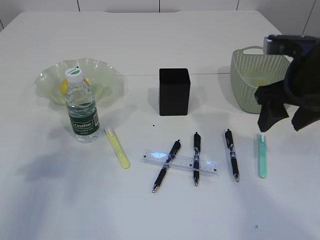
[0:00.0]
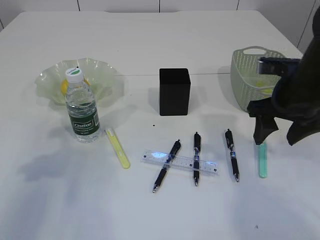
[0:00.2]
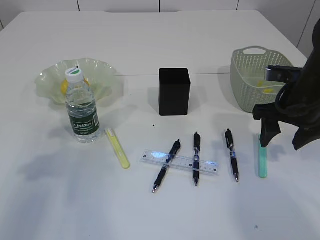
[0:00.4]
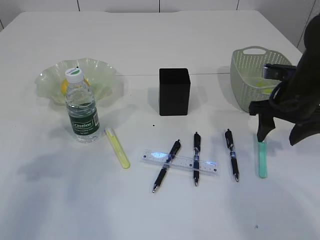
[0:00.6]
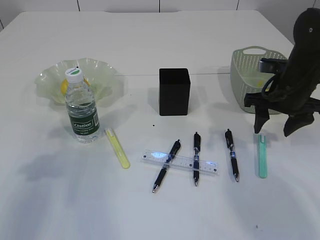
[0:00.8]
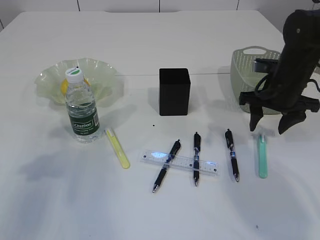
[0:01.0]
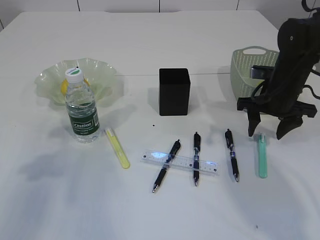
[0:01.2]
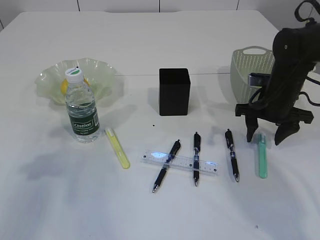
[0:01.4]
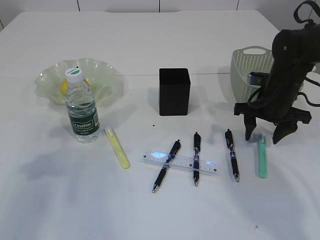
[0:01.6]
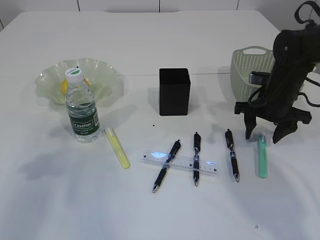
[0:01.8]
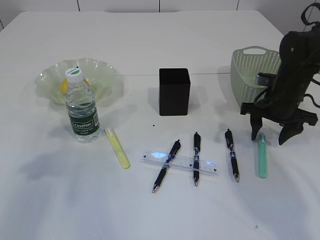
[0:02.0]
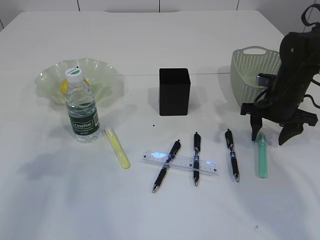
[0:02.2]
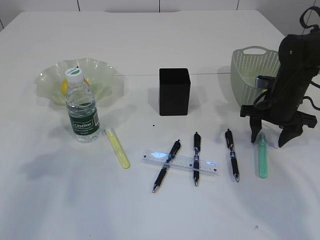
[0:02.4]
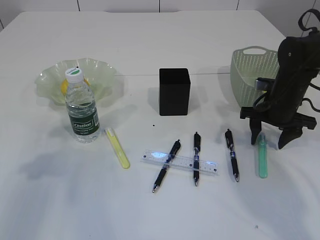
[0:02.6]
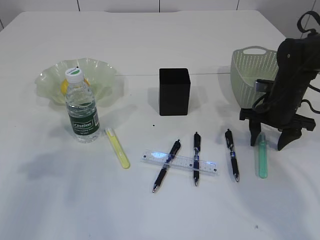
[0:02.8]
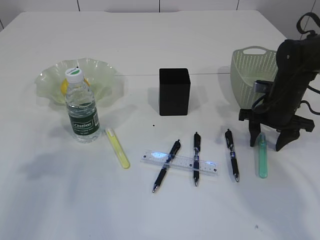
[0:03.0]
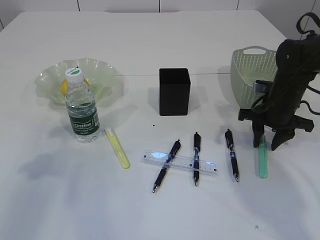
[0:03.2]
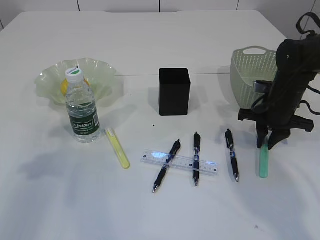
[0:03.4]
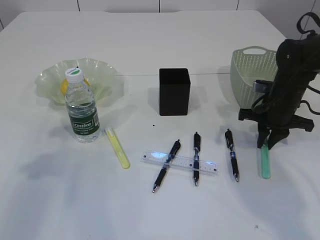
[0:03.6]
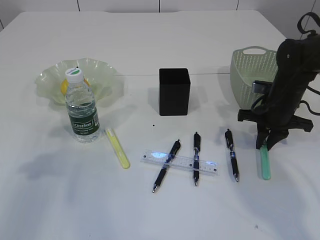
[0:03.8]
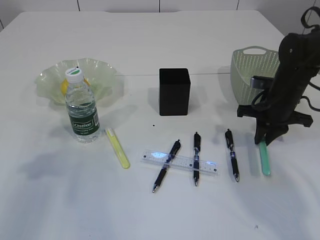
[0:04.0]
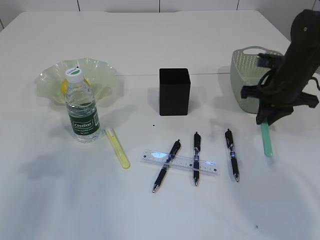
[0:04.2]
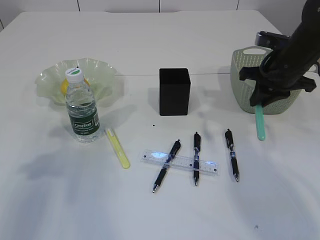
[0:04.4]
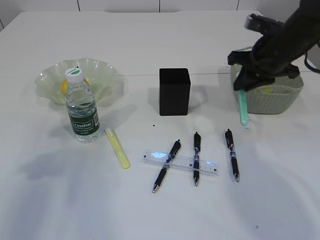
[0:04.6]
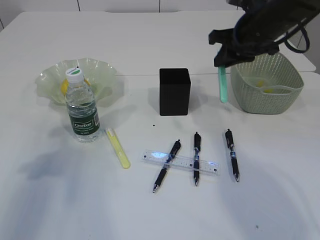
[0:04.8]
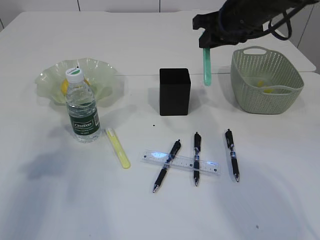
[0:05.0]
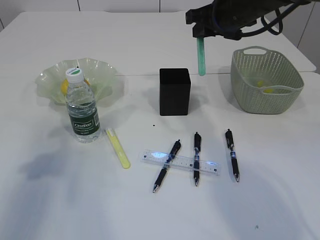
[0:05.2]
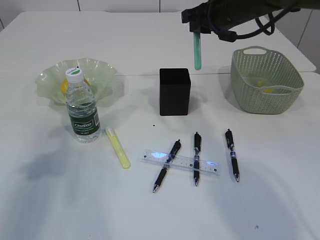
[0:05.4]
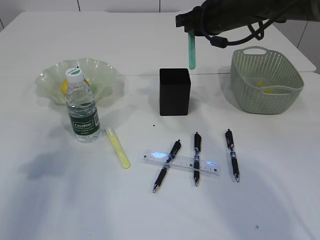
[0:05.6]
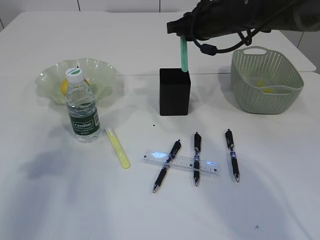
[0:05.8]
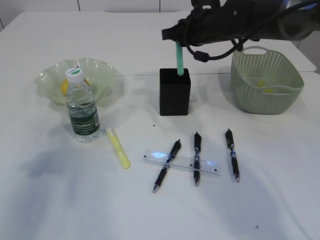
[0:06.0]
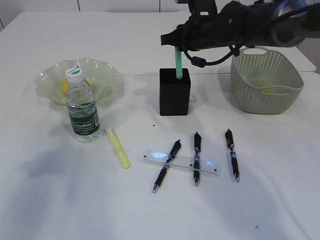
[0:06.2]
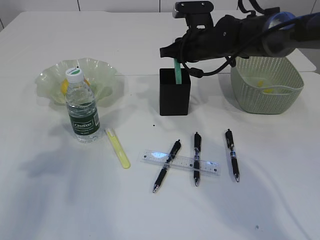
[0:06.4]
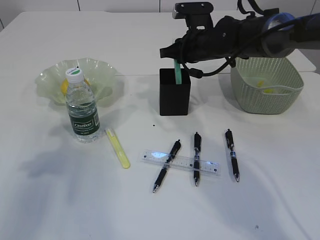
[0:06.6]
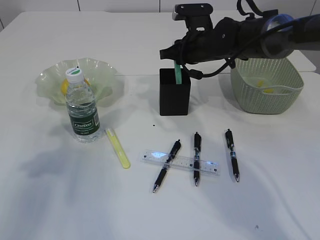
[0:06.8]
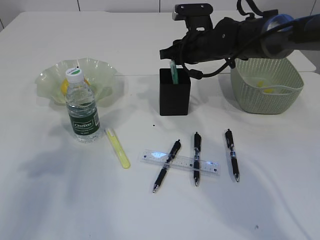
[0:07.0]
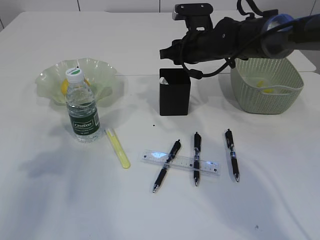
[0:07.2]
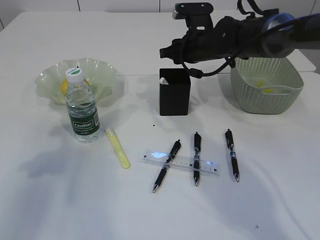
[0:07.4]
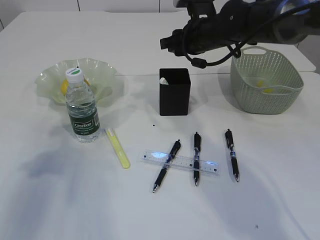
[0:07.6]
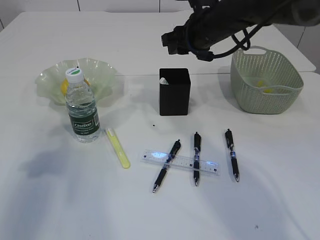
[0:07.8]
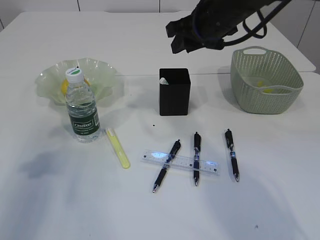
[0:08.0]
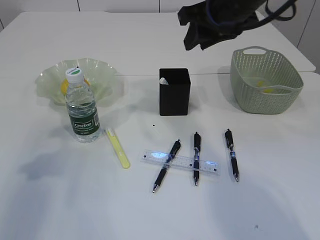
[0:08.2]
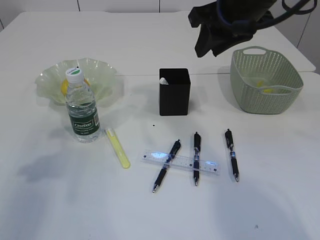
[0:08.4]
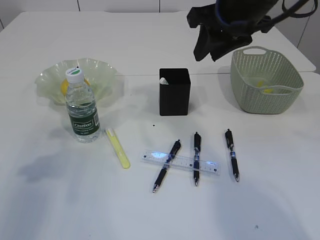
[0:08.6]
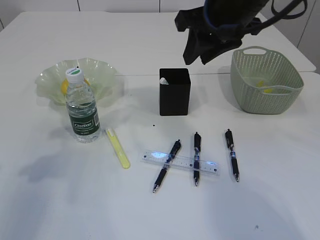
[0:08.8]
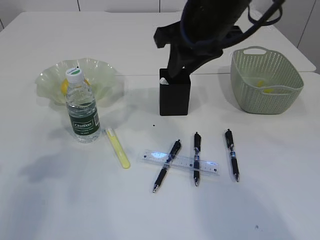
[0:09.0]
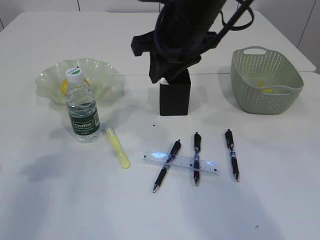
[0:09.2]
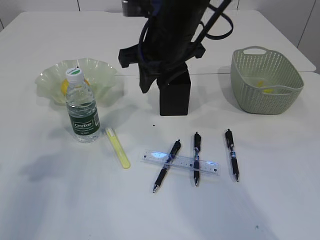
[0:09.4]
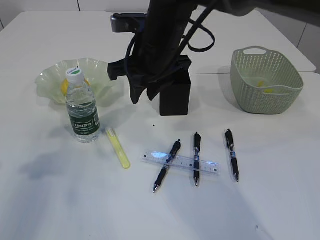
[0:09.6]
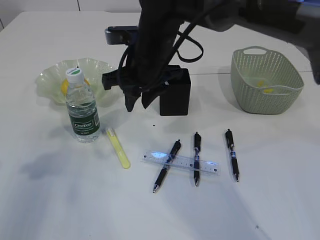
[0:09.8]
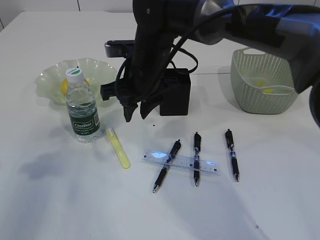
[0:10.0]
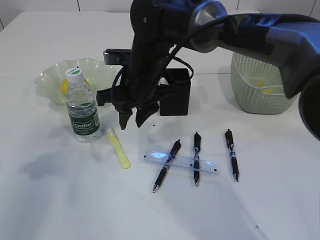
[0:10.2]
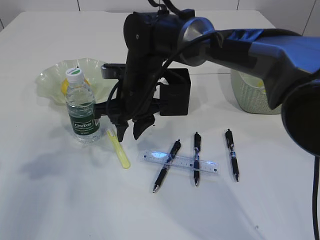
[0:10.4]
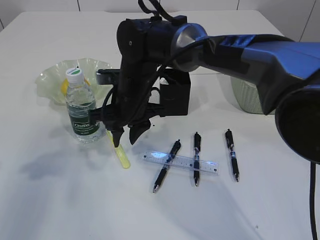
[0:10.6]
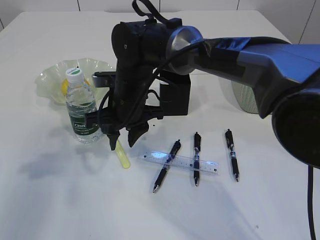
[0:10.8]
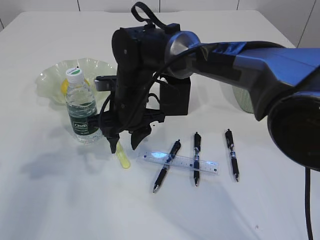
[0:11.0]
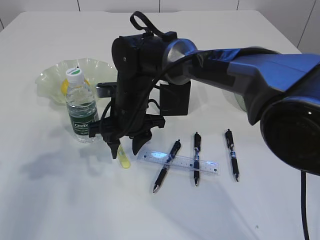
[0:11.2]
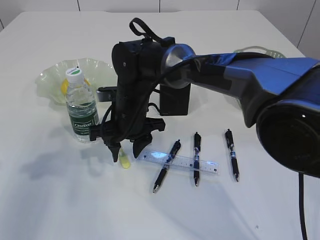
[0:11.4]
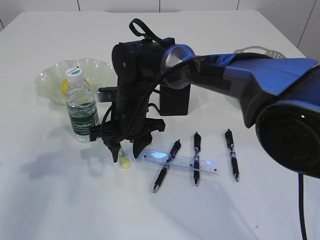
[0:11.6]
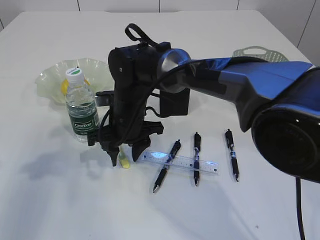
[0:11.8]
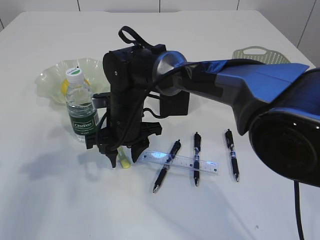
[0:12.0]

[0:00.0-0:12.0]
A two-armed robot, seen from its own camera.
Step, 0:00.0 to 0:04.2: pick up the blue knife.
Step, 0:04.4 to 0:07.6: Place the blue knife into the pen holder.
0:00.0 to 0:01.6: The right gripper is displaced downward and forward by about 15 cm.
0:01.6 to 0:03.0: There are only small adjustments of the grippers.
0:03.0 to 0:04.4: The right gripper heads upward, covering roughly 10 cm, and closes up.
0:04.4 to 0:06.0: The right gripper goes approximately 15 cm to the left and forward.
0:06.0 to 0:07.6: The grippers move only a little.
0:07.6 to 0:09.0: The right gripper shifts roughly 15 cm backward and upward.
0:09.0 to 0:10.4: The right gripper travels downward and to the left by roughly 20 cm.
0:10.4 to 0:12.0: The right gripper shifts by approximately 5 cm.

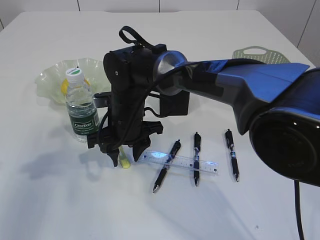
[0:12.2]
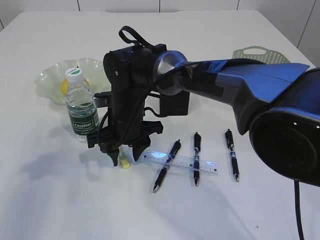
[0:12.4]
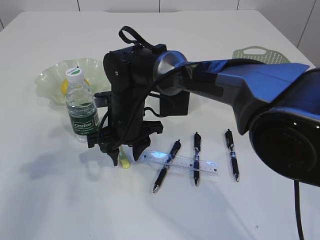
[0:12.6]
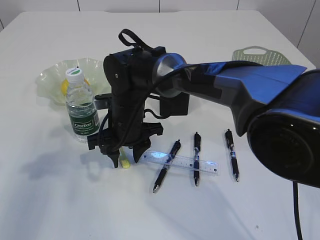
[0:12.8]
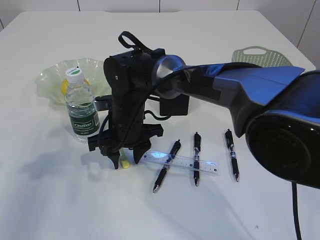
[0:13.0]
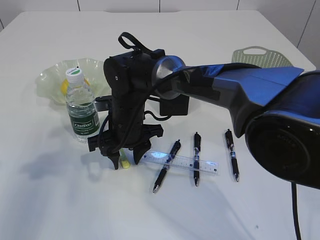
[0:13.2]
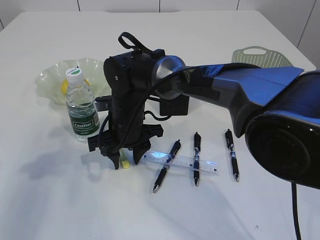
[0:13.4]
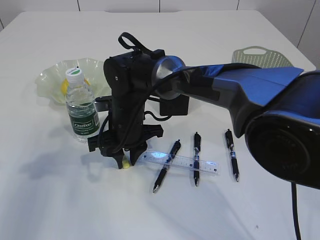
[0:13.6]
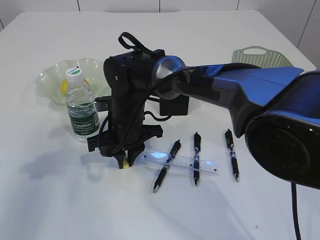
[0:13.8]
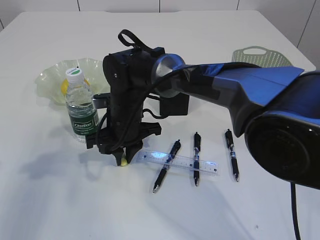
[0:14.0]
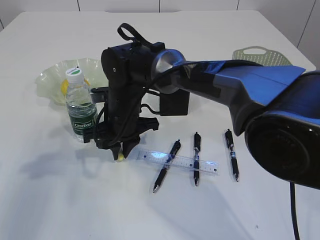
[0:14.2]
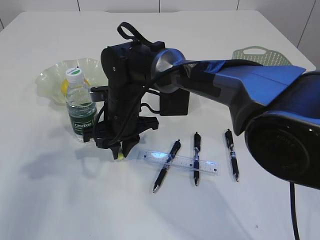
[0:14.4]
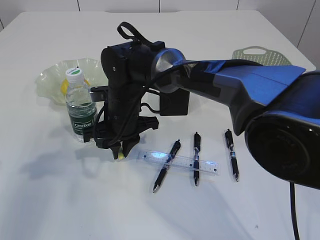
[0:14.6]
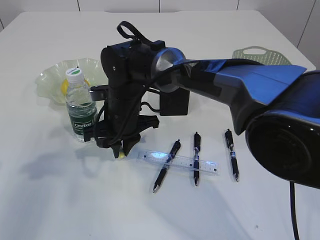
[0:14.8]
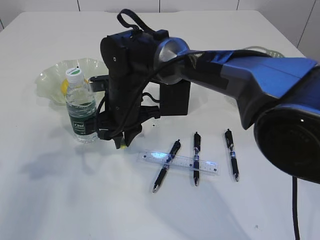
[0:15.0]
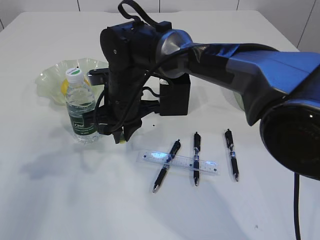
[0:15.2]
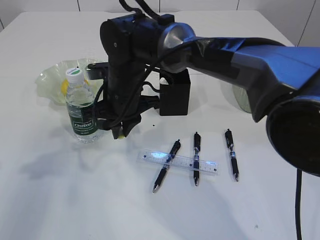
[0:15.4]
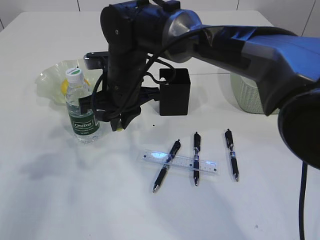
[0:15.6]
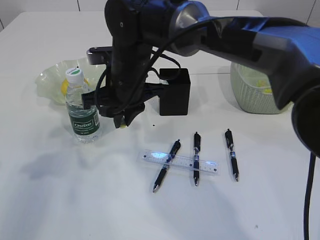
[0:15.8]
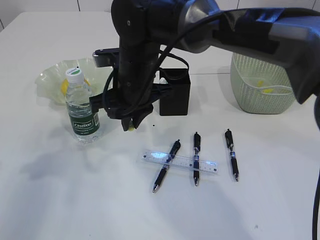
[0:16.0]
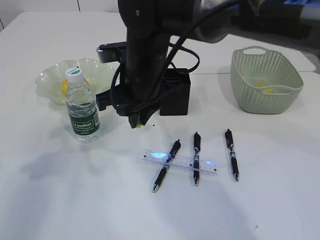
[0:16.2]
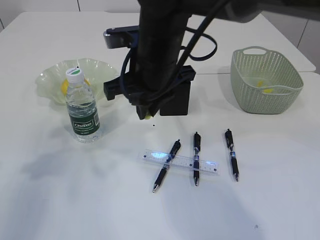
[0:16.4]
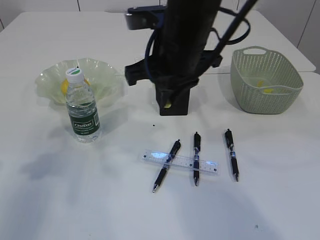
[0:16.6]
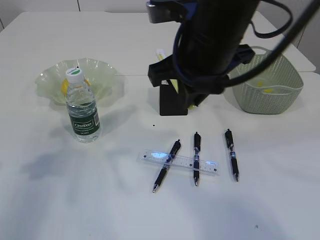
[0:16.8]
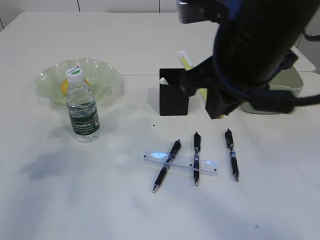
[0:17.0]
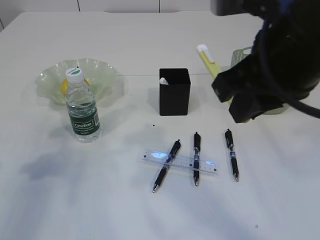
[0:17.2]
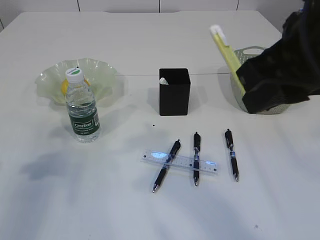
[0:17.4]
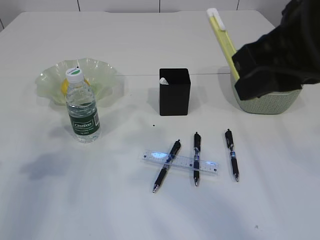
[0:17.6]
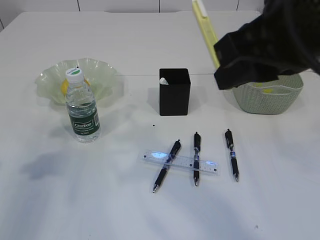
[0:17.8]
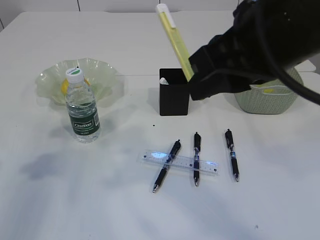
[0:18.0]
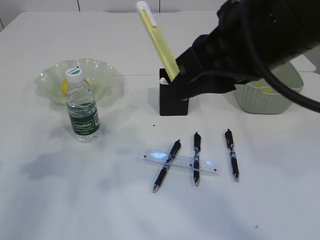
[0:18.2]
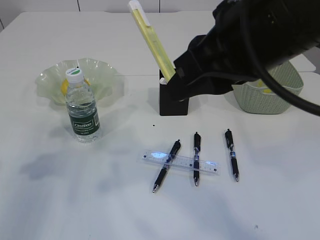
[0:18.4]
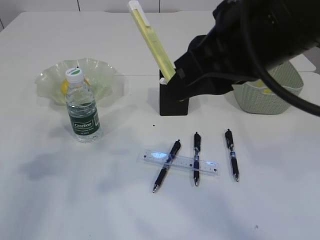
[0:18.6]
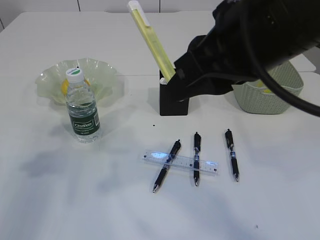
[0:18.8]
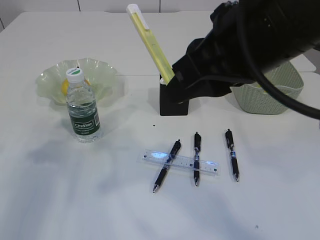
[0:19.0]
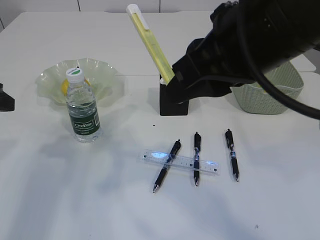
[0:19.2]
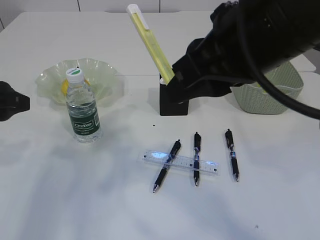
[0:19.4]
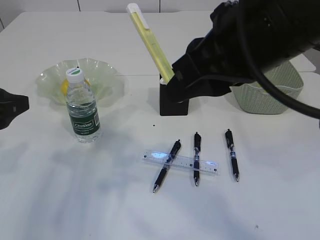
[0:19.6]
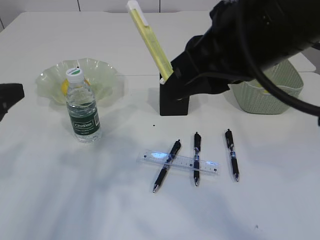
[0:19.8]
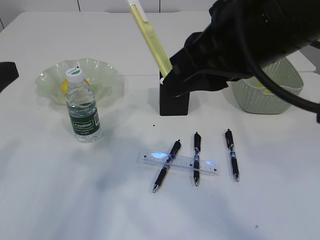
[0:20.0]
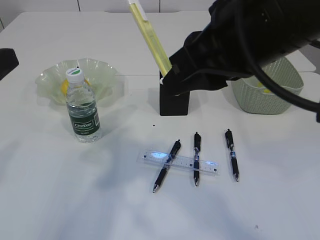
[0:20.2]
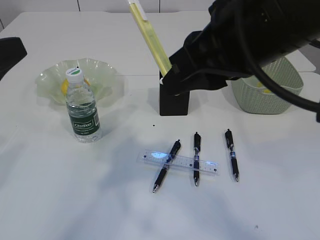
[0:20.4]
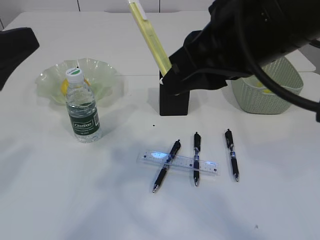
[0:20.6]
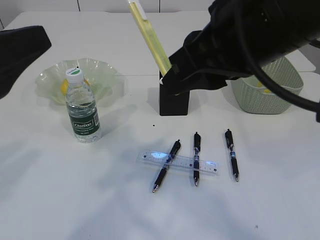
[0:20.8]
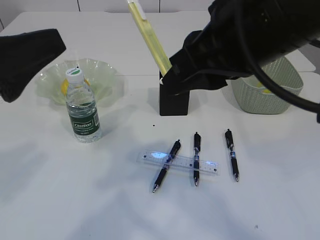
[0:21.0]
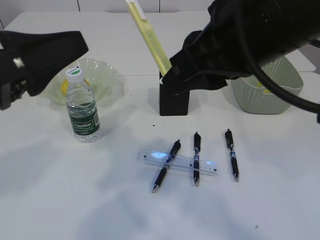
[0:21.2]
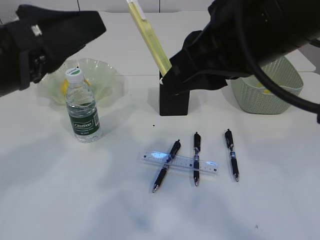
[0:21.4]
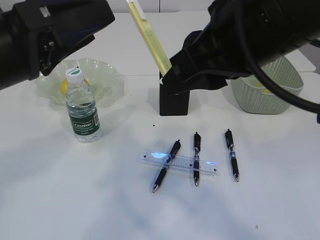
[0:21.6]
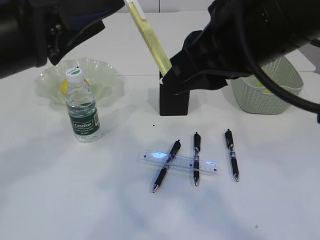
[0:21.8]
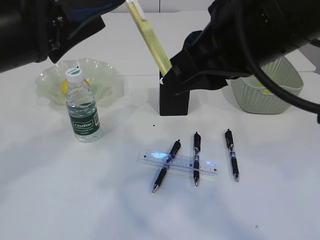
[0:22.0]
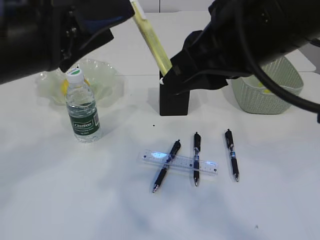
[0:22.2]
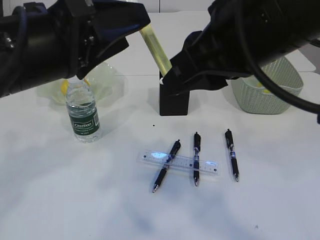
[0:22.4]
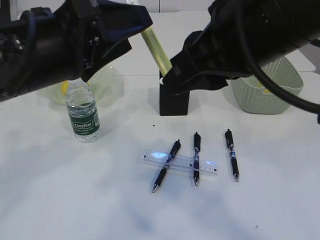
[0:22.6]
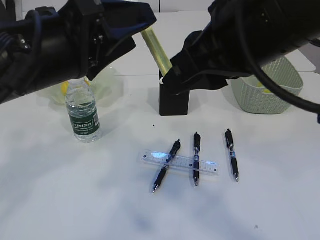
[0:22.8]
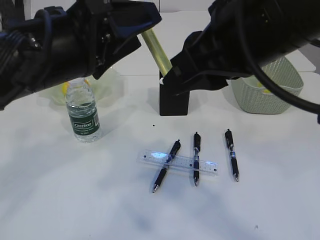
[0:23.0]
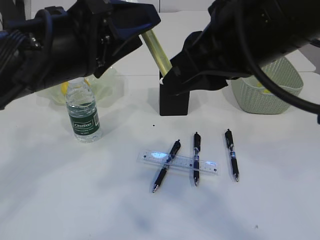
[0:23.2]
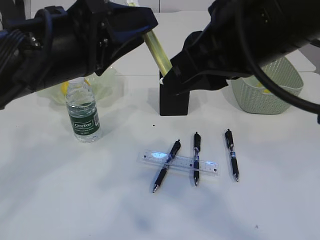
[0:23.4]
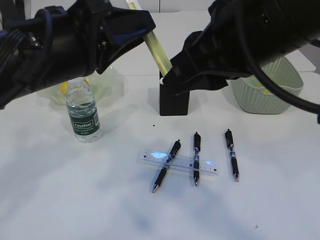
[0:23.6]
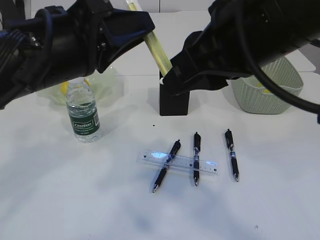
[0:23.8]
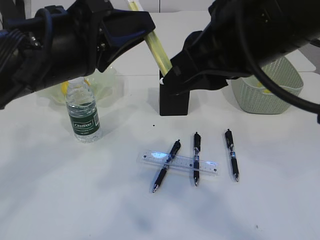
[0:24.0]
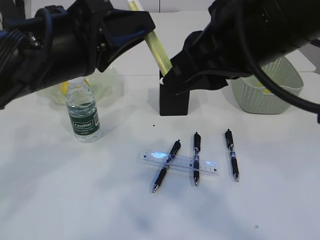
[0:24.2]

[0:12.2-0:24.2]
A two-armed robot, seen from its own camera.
Step, 0:12.2 to 0:15.2: pick up the yellow knife.
0:12.2 to 0:13.8: The right gripper closes.
0:15.2 to 0:16.6: The right gripper heads upward, to the right and backward, covering about 15 cm.
0:16.6 to 0:18.2: The right gripper moves backward, upward and to the right, some 15 cm.
0:18.2 to 0:19.8: The left gripper shifts about 5 cm to the right.
0:19.8 to 0:21.2: The left gripper moves to the right, approximately 10 cm.
0:21.2 to 0:22.6: The left gripper travels to the right by about 5 cm.
0:22.6 to 0:24.2: The left gripper closes its fingers.
